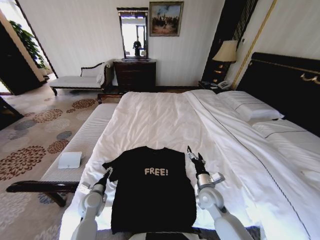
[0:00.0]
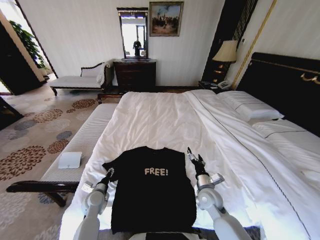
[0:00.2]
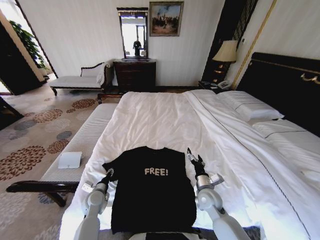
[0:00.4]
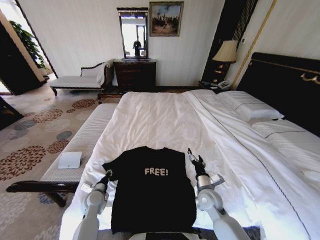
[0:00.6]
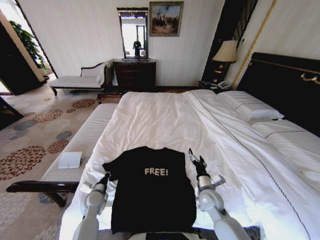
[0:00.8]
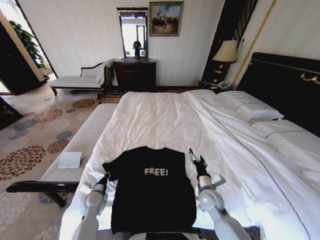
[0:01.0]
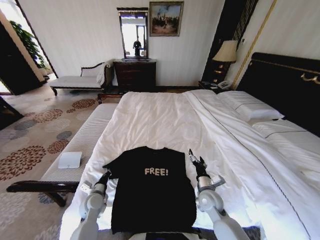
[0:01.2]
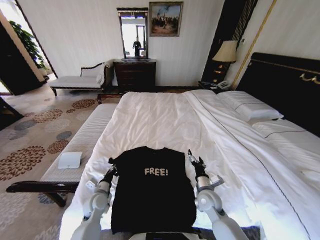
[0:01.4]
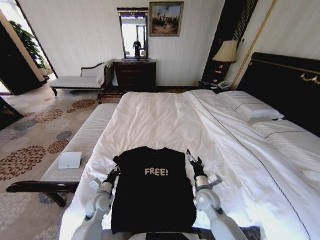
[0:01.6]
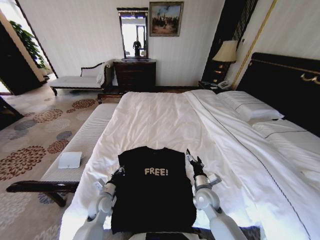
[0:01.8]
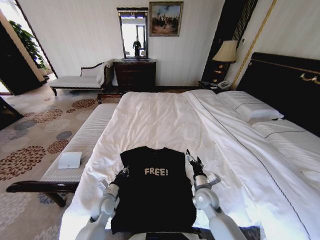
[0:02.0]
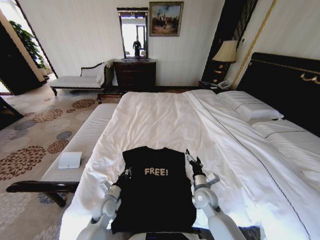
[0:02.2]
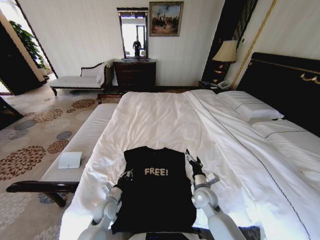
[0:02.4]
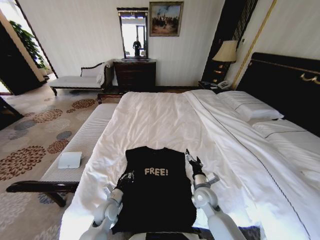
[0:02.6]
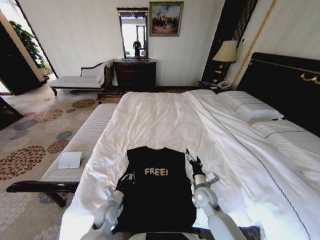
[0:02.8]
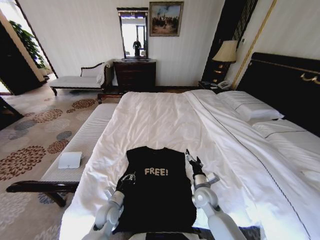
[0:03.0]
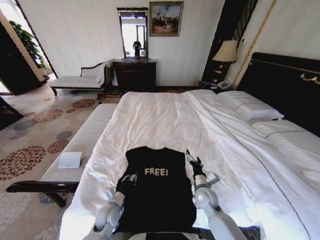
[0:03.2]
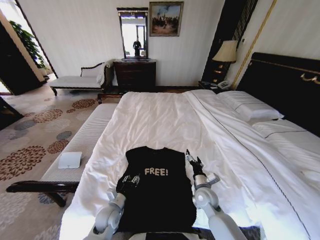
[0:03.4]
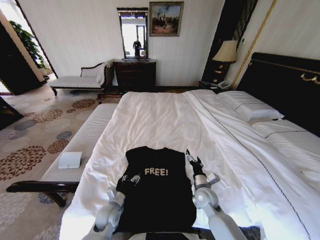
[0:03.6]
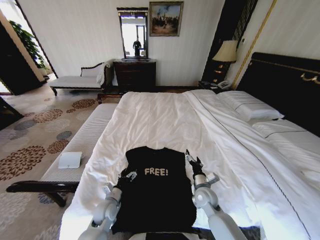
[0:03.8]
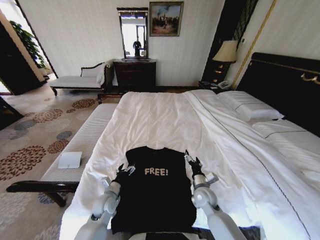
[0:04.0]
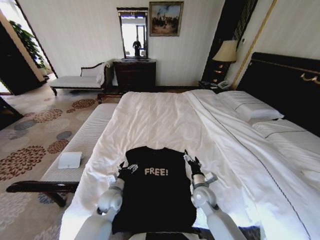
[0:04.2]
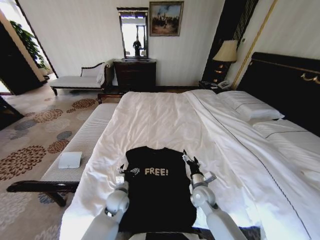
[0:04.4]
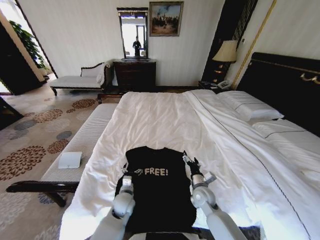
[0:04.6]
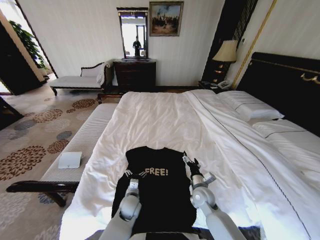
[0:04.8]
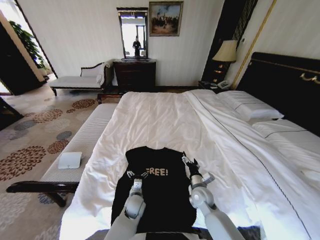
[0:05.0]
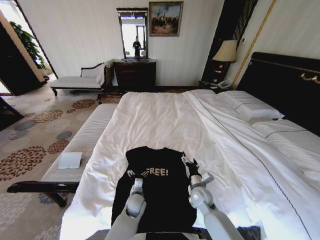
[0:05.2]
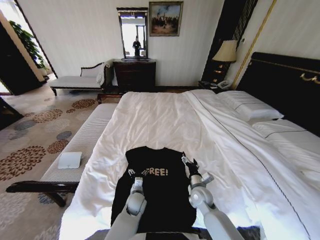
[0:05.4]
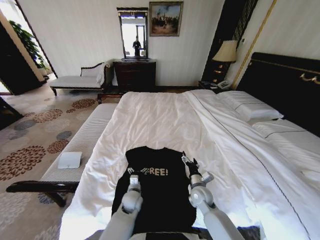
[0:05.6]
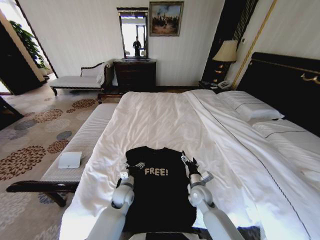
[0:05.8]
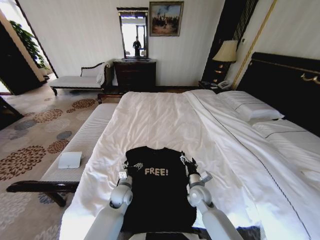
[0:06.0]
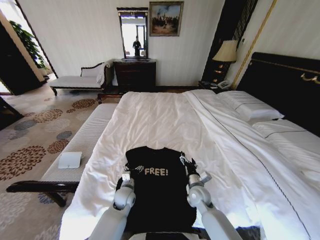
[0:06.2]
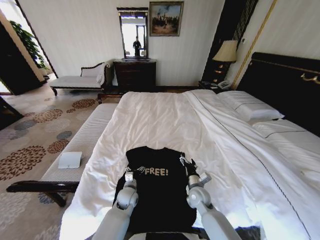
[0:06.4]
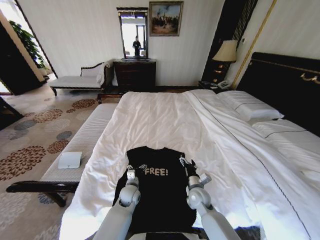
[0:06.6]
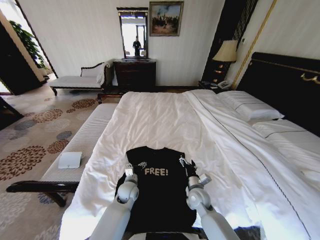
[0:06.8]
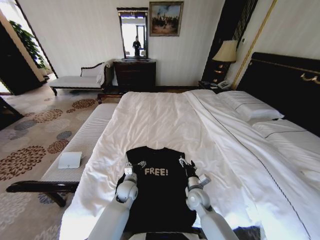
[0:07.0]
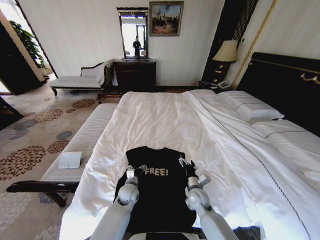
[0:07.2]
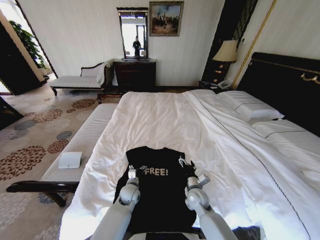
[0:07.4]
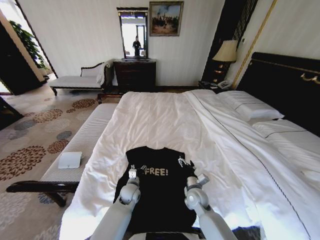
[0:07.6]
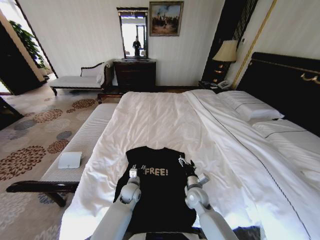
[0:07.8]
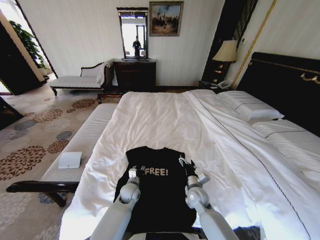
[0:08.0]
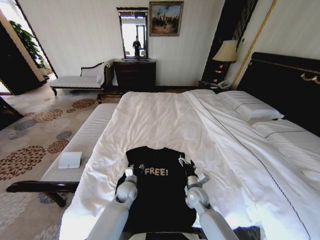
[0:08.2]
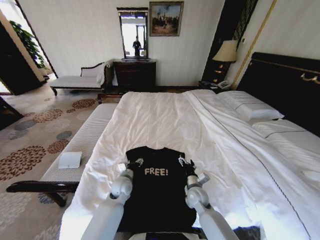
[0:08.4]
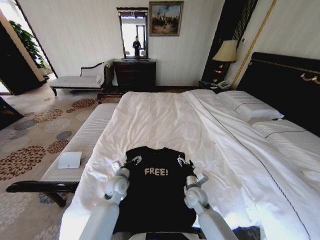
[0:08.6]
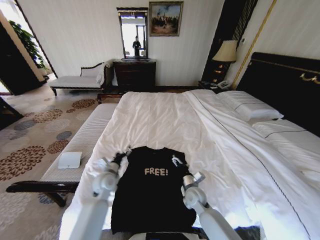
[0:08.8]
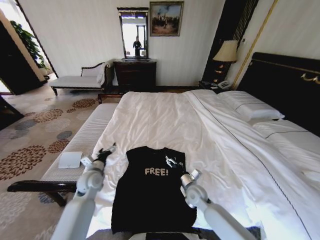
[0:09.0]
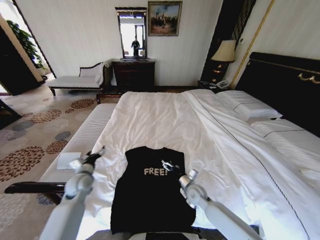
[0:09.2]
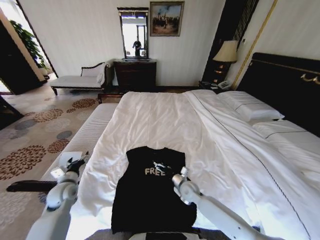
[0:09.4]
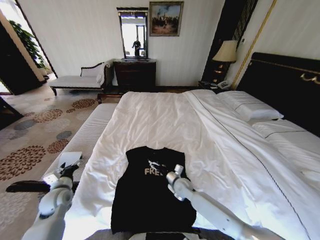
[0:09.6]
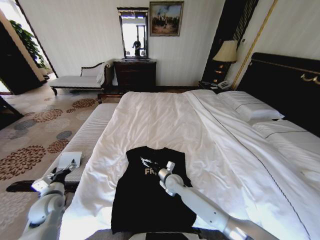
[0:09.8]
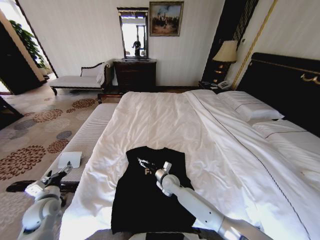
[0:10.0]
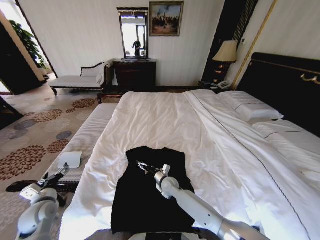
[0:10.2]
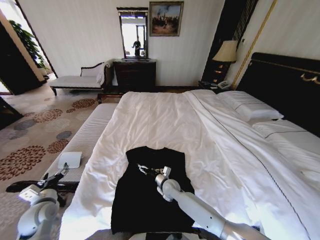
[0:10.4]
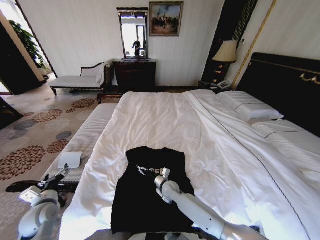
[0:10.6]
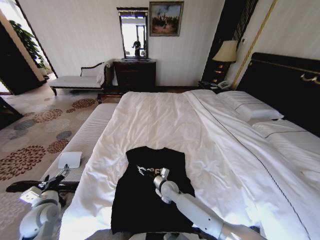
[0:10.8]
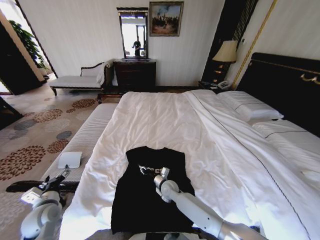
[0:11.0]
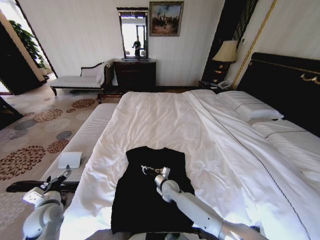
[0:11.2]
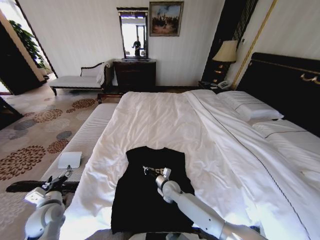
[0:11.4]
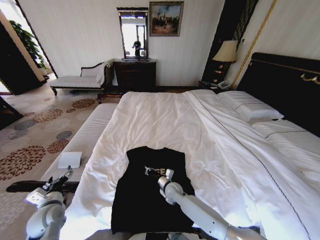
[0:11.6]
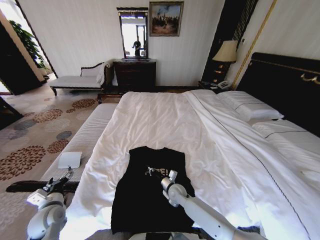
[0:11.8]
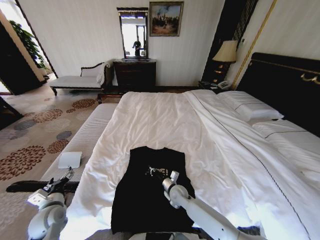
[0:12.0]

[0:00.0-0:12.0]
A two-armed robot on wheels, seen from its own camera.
Task of the whole recording: Fold the clothes on the bed.
0:00.0 to 0:01.6: The left gripper closes its fingers.
0:01.6 to 0:03.0: The left gripper ends up roughly 5 cm from where it was.
0:03.0 to 0:04.4: The left gripper shifts by approximately 10 cm, and opens up.
0:04.4 to 0:06.0: The left gripper reaches about 10 cm to the right, then returns.
0:06.0 to 0:07.6: The grippers move only a little.
0:07.6 to 0:09.0: The left gripper shifts approximately 20 cm to the left and upward.
0:09.0 to 0:10.4: The left gripper is displaced to the left and backward by approximately 20 cm. The right gripper moves to the left, some 10 cm.
0:10.4 to 0:12.0: The right gripper closes its fingers.

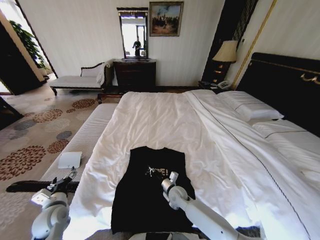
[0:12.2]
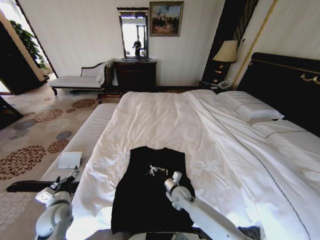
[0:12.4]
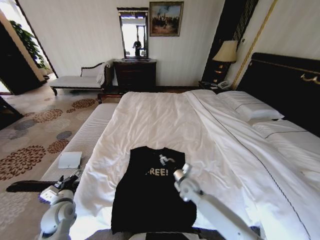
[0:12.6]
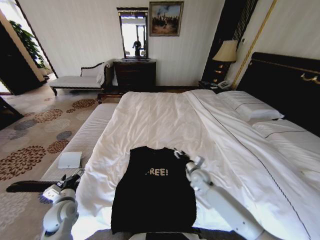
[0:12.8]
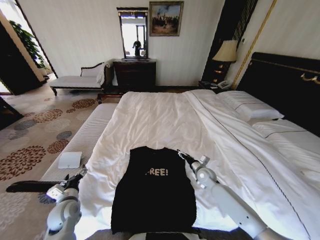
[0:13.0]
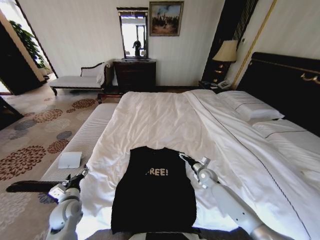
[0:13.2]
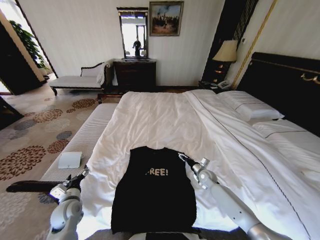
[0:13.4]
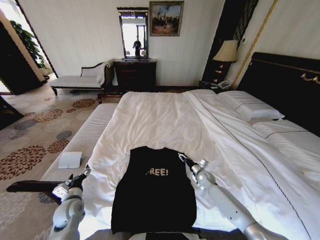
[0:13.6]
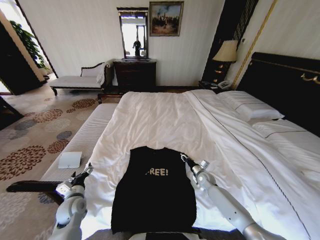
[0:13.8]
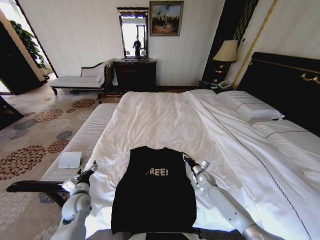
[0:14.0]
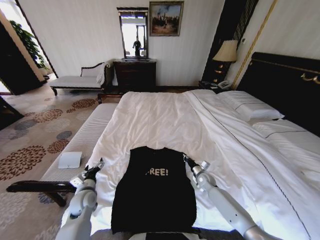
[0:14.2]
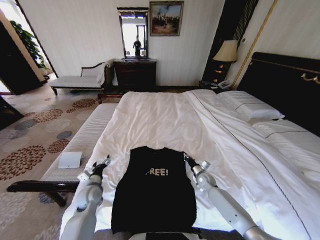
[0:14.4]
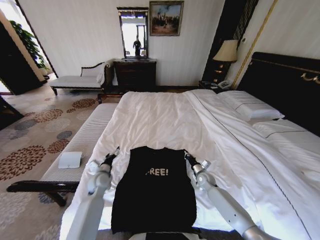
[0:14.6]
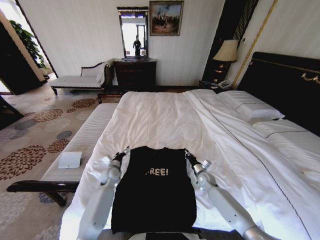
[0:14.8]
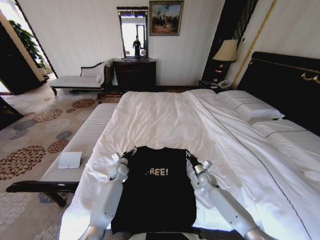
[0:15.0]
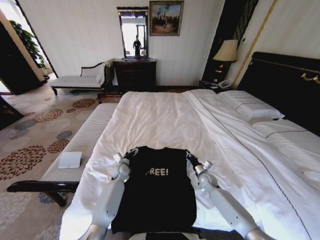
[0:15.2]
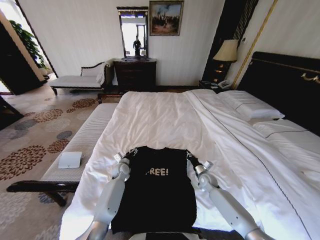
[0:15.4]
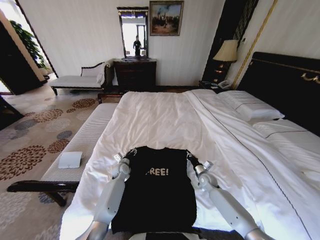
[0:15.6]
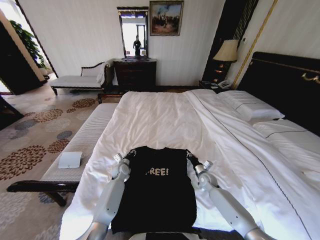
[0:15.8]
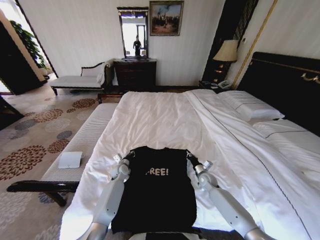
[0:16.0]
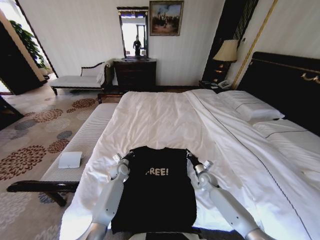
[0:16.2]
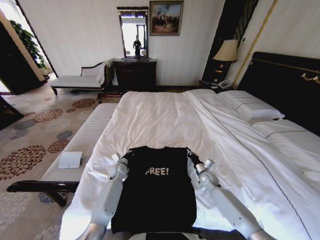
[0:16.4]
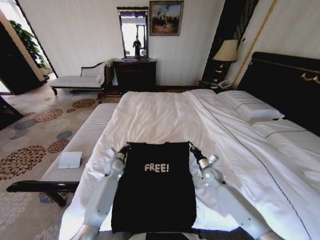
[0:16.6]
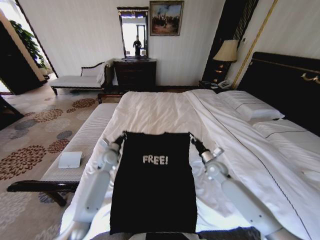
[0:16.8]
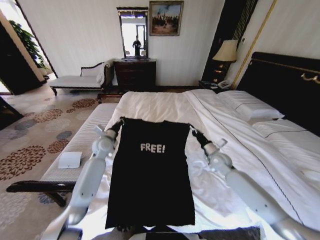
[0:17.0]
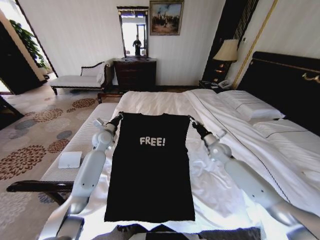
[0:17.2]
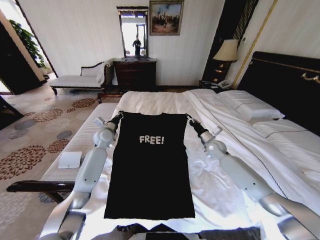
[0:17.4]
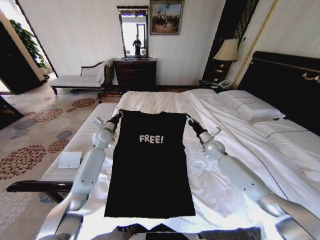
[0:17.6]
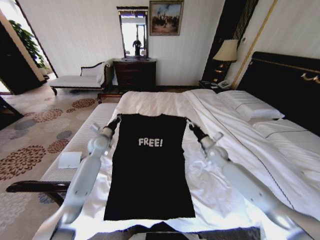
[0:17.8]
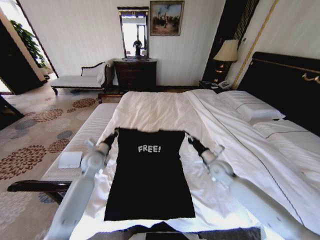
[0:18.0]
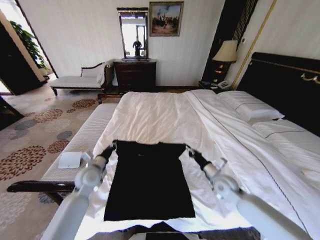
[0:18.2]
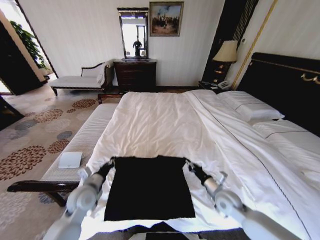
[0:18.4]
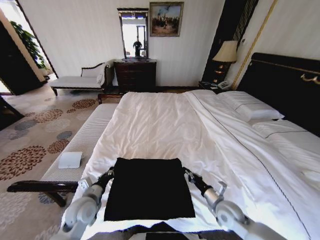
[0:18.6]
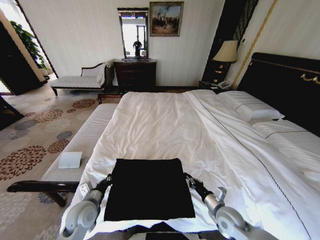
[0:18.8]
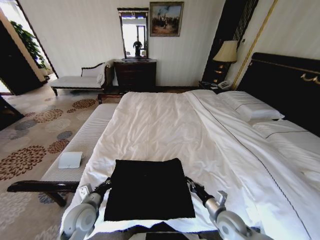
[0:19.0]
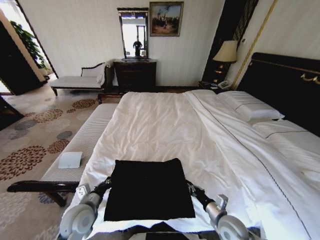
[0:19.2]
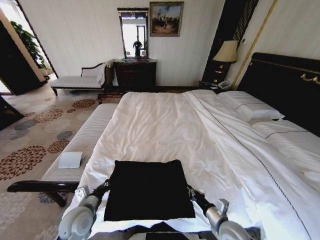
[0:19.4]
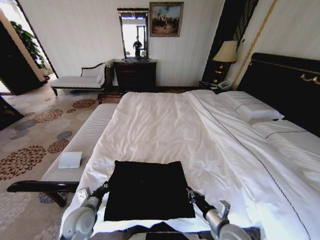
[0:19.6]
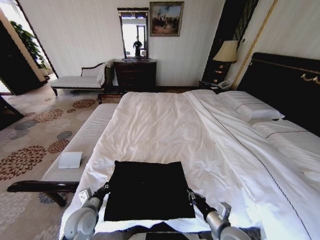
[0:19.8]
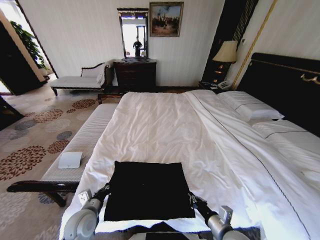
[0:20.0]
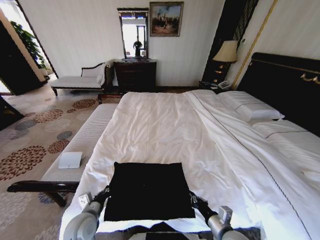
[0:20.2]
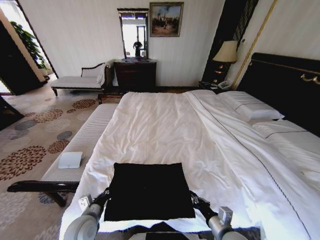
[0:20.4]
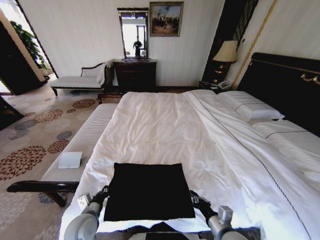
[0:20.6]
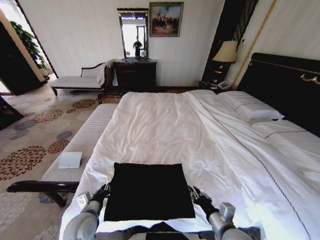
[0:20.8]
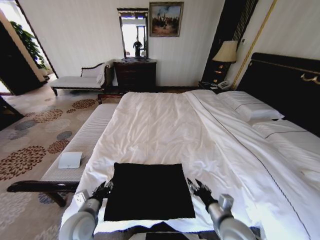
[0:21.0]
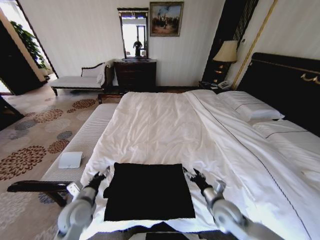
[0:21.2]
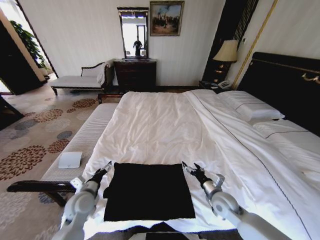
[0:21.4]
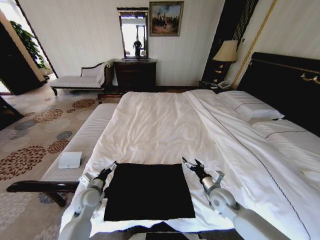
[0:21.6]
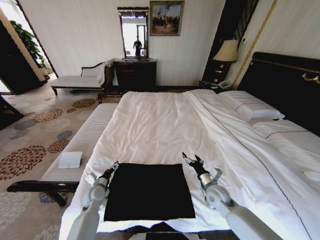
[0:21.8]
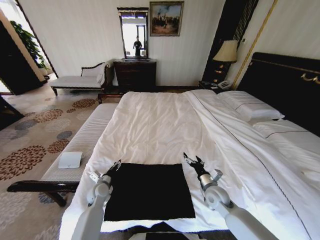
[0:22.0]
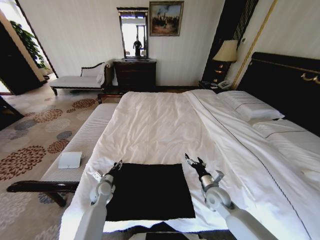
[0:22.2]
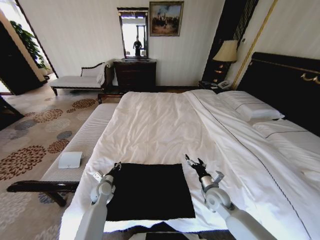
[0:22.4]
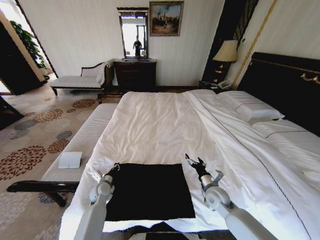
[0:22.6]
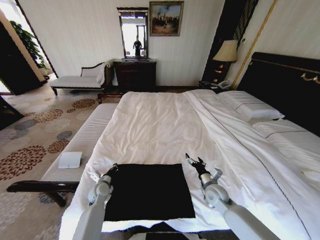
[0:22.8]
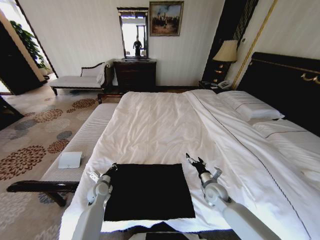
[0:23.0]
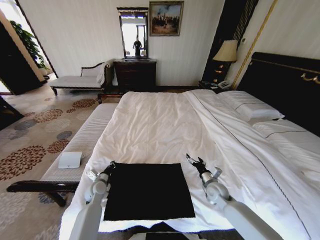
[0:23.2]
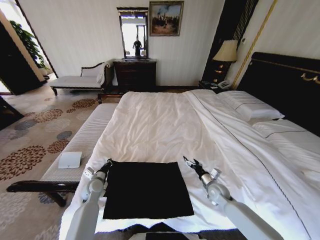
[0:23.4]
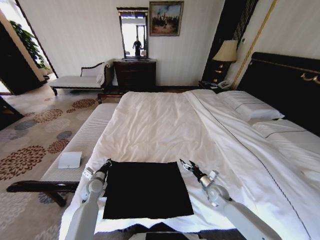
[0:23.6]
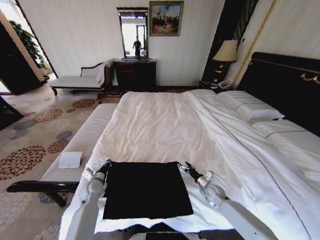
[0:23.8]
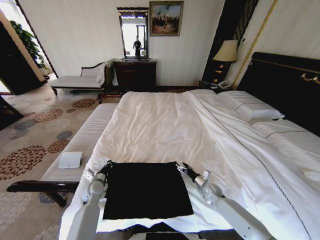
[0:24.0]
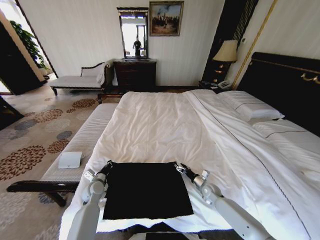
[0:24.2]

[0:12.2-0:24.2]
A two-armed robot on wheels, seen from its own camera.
Task of the whole recording: Fold the clothes on the bed.
0:12.2 to 0:13.8: The left gripper shifts by approximately 5 cm. Meanwhile the right gripper moves to the right and forward, some 20 cm, and opens up.
0:13.8 to 0:15.2: The left gripper heads forward and to the right, covering approximately 25 cm. Meanwhile the right gripper closes its fingers.
0:15.2 to 0:16.6: Both grippers travel together upward, roughly 5 cm. The left gripper closes its fingers.
0:16.6 to 0:18.2: The right gripper goes approximately 10 cm backward and upward. The left gripper travels backward, upward and to the left by approximately 15 cm.
0:18.2 to 0:19.8: The left gripper goes about 15 cm backward and downward, while the right gripper moves backward, approximately 20 cm.
0:19.8 to 0:21.2: The right gripper goes some 10 cm forward, and opens. Meanwhile the left gripper opens.
0:21.2 to 0:22.6: The right gripper heads forward, covering approximately 5 cm. Meanwhile the left gripper travels downward and forward by roughly 15 cm, and closes.
0:22.6 to 0:24.2: The right gripper goes about 15 cm downward and forward.
